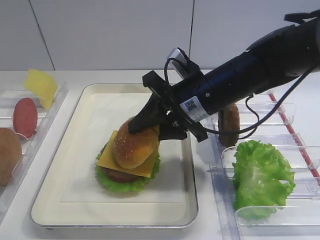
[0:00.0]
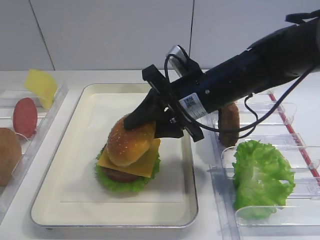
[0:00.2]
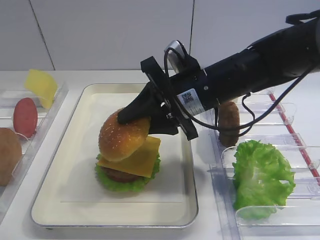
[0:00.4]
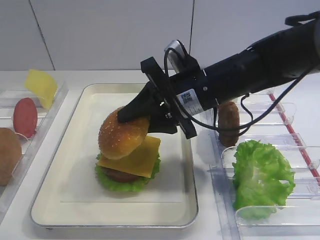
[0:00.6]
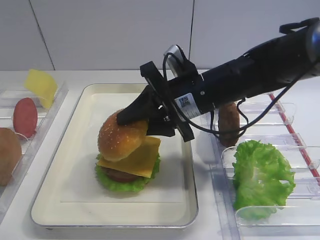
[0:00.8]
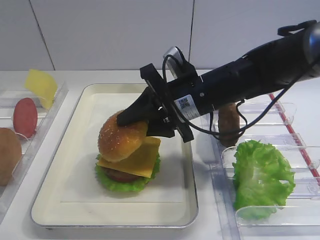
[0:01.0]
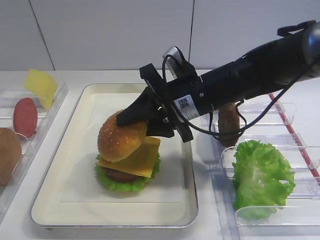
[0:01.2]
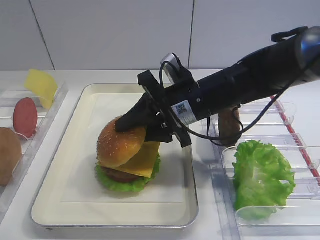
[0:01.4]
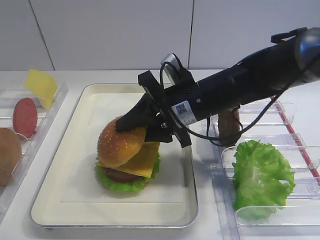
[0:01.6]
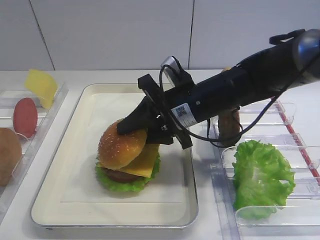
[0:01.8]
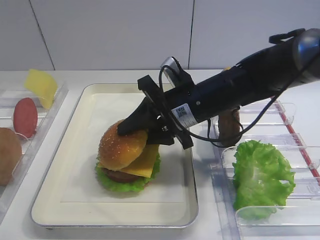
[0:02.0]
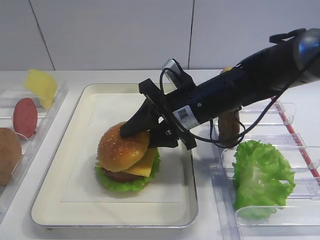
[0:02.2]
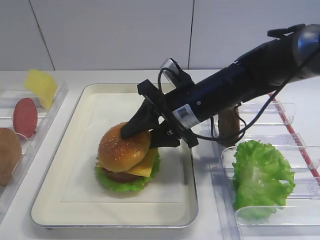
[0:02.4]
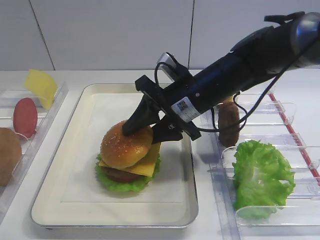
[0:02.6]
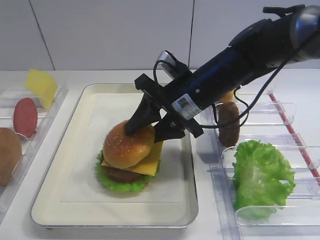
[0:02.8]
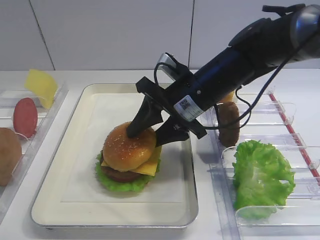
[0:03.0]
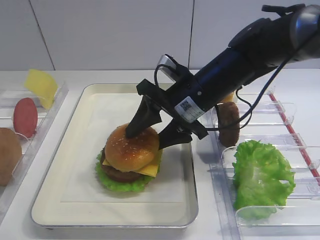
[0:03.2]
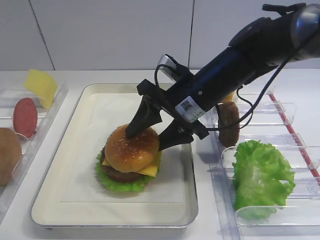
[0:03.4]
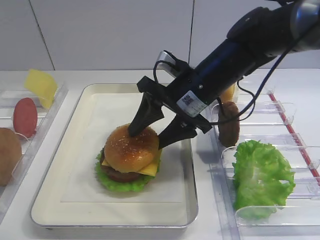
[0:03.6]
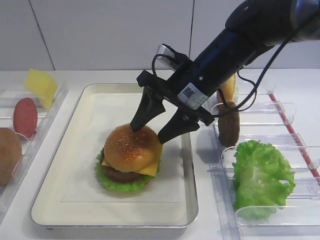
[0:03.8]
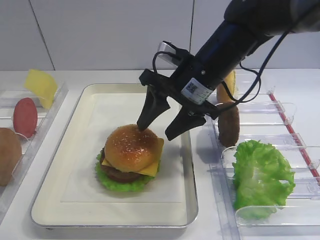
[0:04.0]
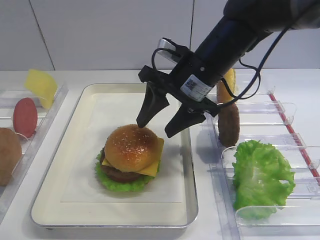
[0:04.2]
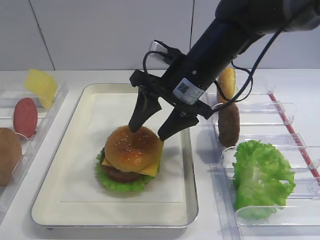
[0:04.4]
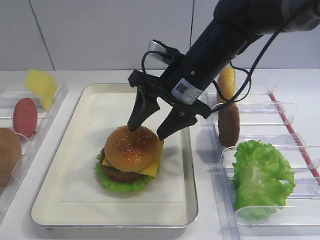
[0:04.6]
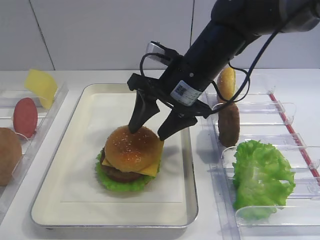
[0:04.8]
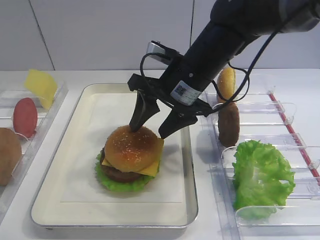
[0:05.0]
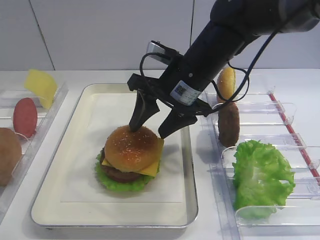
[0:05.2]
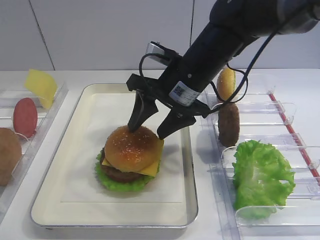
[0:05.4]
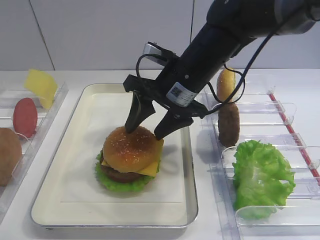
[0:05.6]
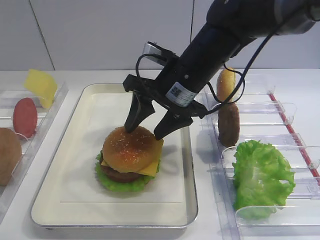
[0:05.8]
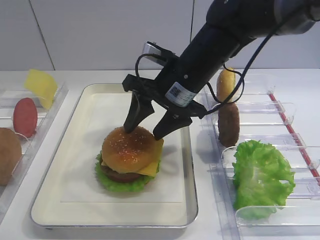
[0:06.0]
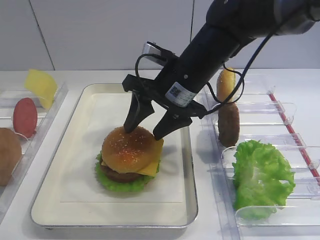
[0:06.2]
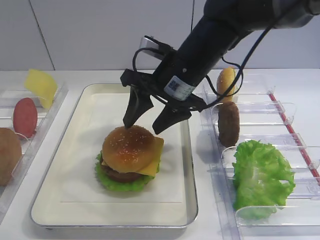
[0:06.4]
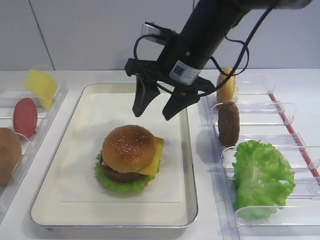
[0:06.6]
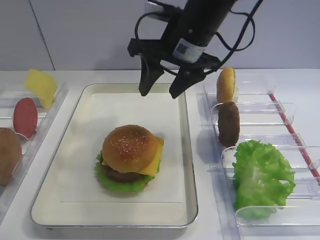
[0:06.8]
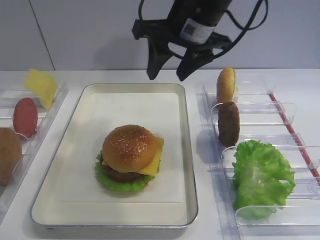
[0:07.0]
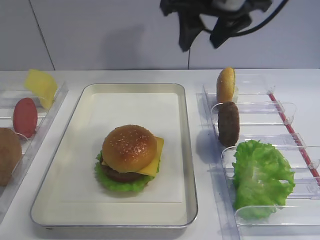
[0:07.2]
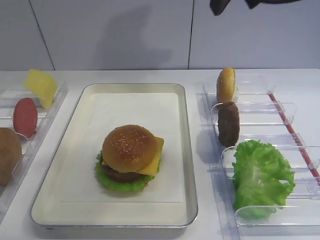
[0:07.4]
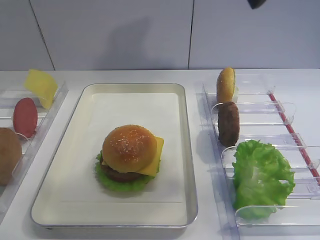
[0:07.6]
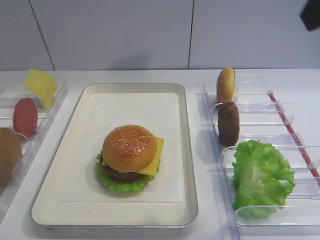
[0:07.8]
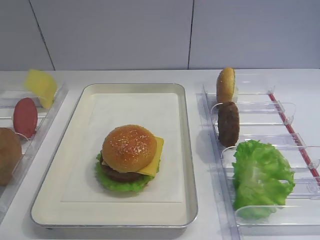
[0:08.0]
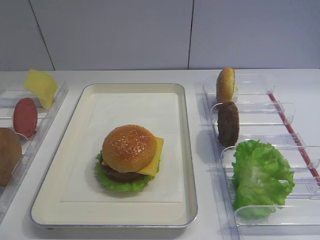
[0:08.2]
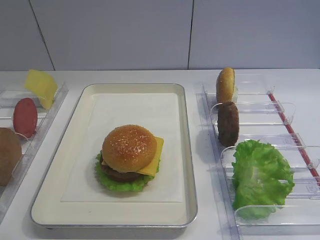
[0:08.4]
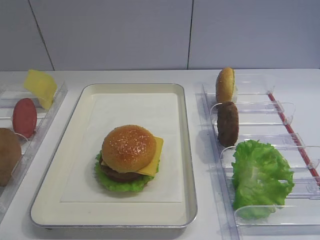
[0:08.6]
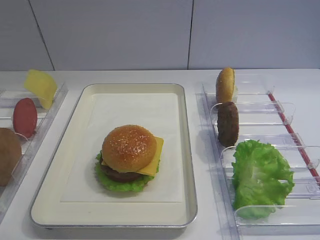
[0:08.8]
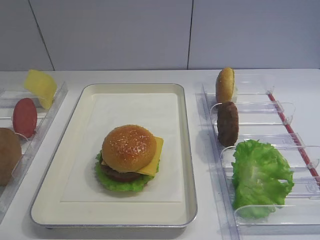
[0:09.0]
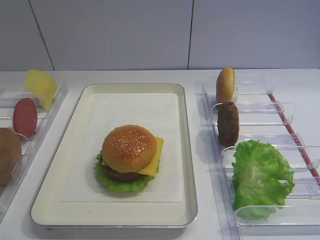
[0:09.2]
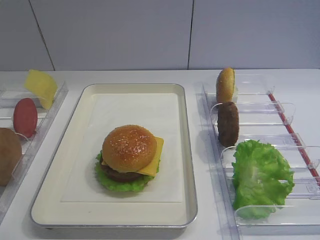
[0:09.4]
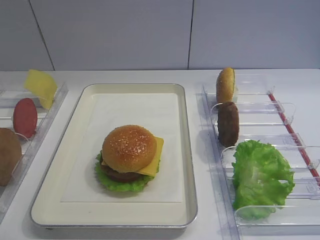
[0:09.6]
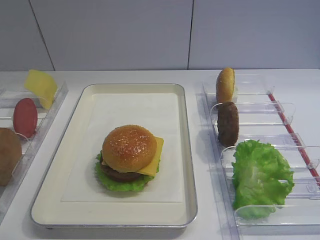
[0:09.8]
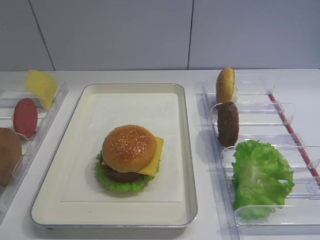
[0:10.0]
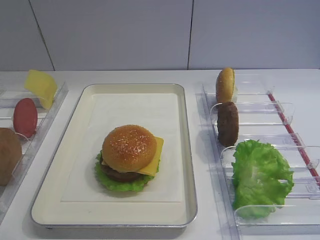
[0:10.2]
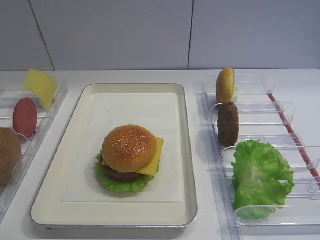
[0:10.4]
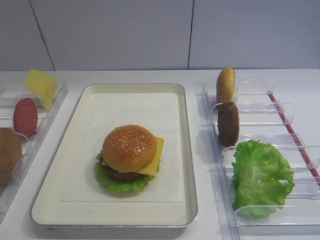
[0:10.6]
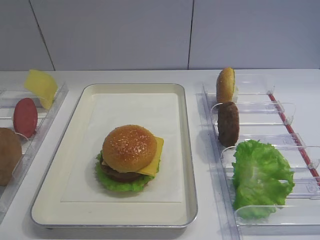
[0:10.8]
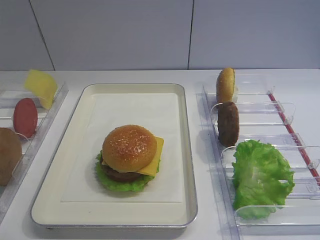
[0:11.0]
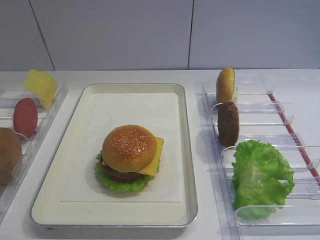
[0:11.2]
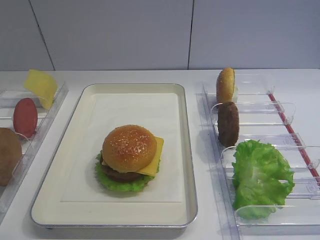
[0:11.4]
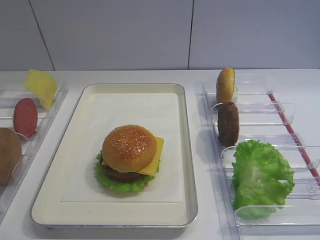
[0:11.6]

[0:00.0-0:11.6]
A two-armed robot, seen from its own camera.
Step, 0:00.0 to 0:06.8: Place the hamburger lid on the cheese slice with the right gripper.
0:00.0 to 0:02.8: The grippers stay close to where they were, moving slightly.
0:02.8 to 0:04.4: The grippers make only small movements.
0:04.4 to 0:05.8: Both grippers stay put.
0:05.8 to 0:07.2: The right gripper travels upward by some 15 cm.
0:07.2 to 0:08.8: The right gripper heads backward and to the right, covering roughly 40 cm.
0:10.2 to 0:11.6: The two grippers keep their place.

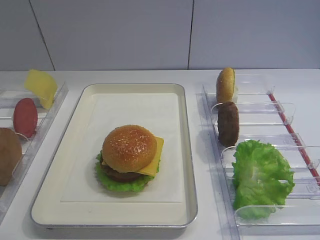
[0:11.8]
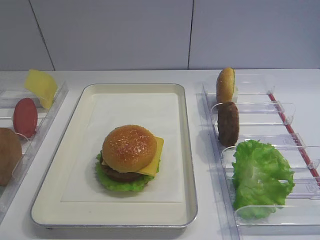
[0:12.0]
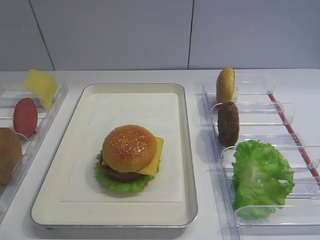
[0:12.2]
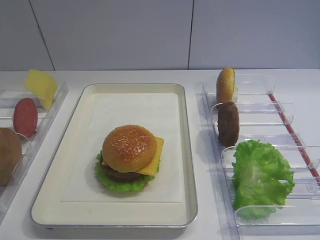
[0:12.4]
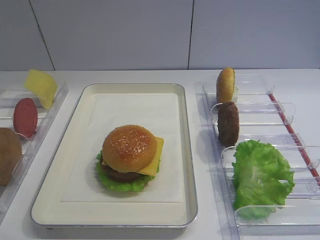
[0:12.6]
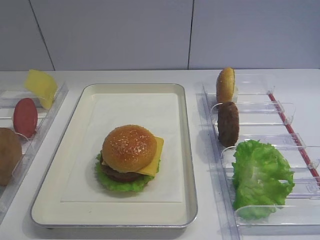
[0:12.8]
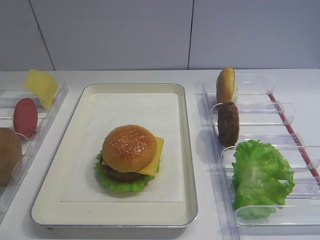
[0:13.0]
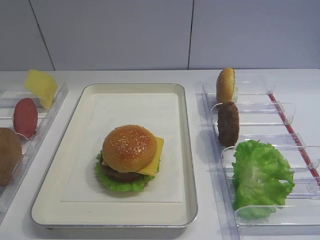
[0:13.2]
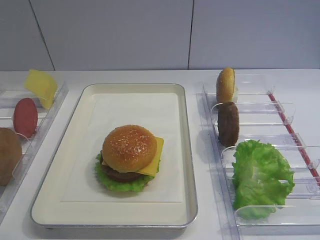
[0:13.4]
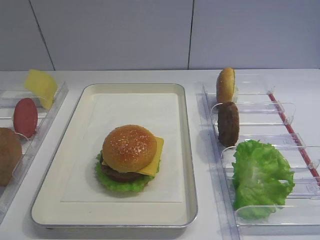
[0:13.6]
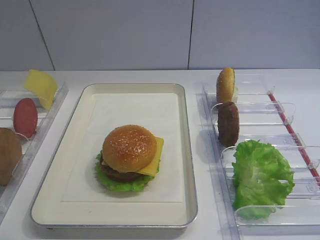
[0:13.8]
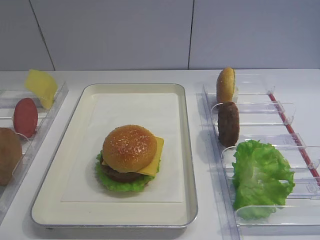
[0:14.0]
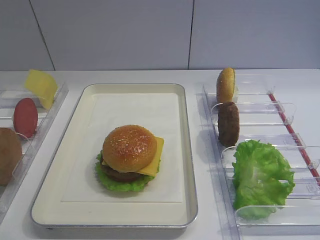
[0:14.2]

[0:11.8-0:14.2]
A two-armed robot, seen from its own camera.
0:11.8 to 0:14.2: Both grippers stay about where they are.
